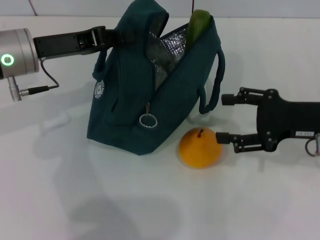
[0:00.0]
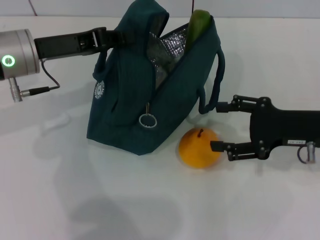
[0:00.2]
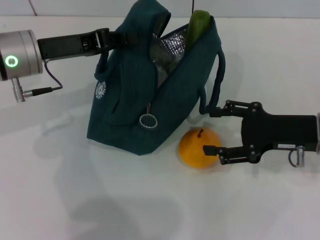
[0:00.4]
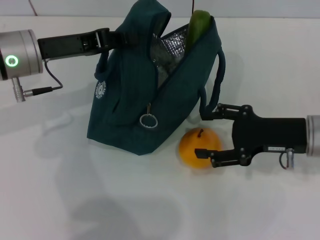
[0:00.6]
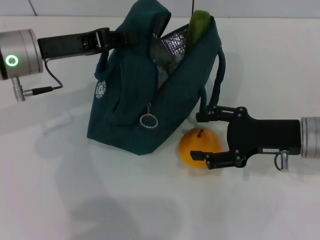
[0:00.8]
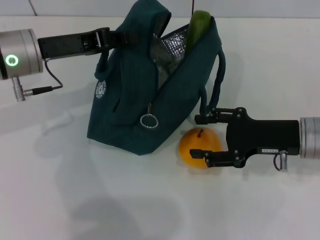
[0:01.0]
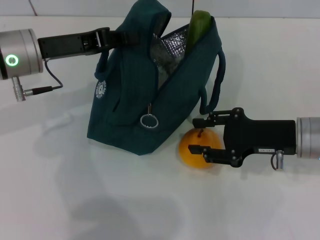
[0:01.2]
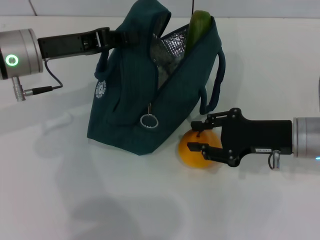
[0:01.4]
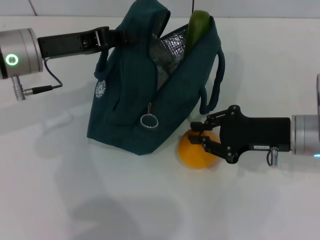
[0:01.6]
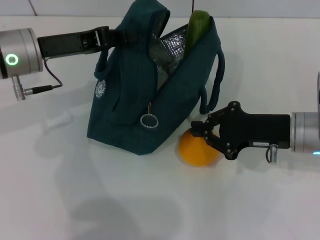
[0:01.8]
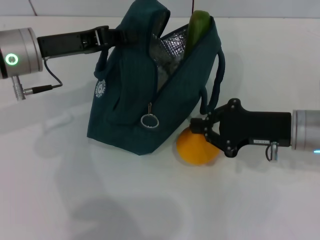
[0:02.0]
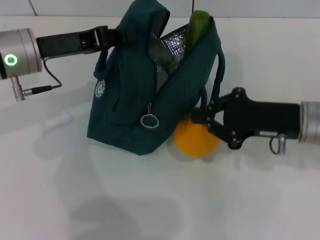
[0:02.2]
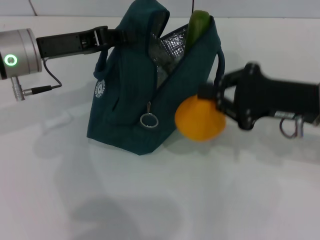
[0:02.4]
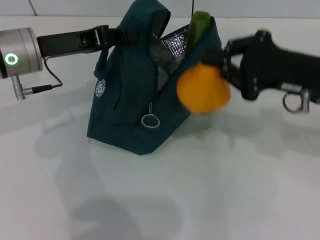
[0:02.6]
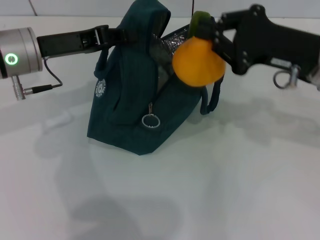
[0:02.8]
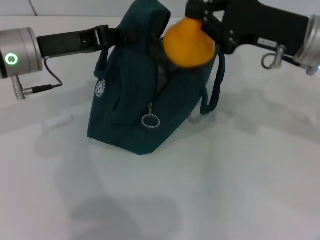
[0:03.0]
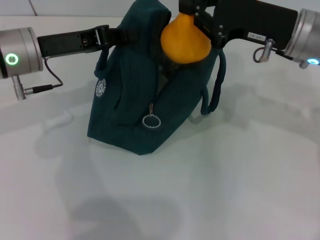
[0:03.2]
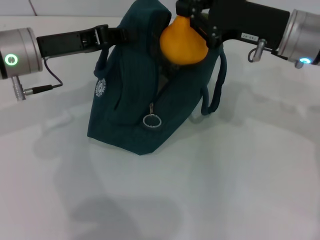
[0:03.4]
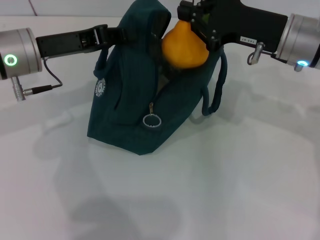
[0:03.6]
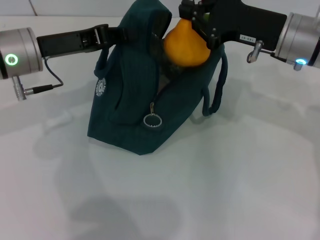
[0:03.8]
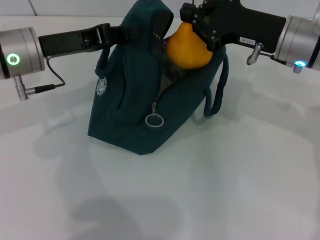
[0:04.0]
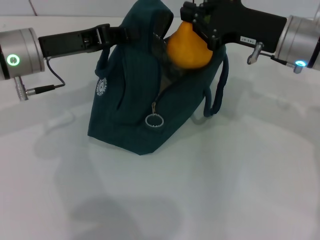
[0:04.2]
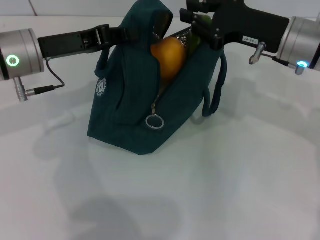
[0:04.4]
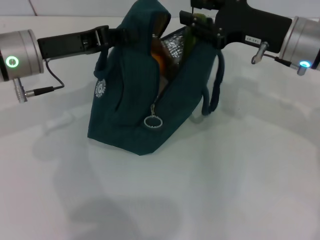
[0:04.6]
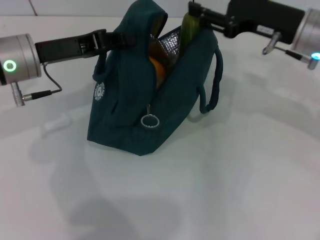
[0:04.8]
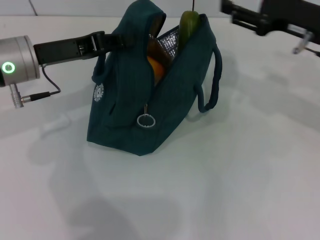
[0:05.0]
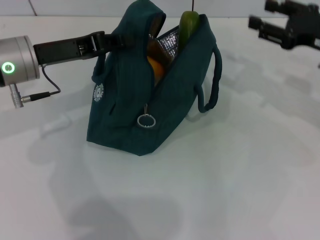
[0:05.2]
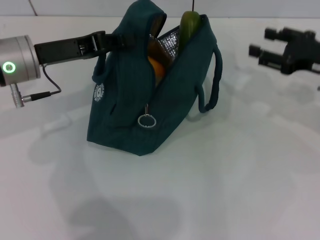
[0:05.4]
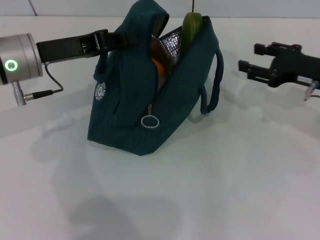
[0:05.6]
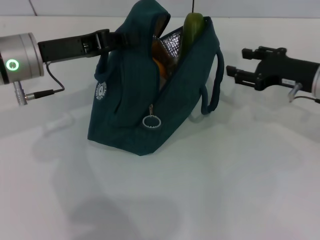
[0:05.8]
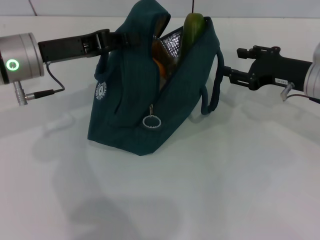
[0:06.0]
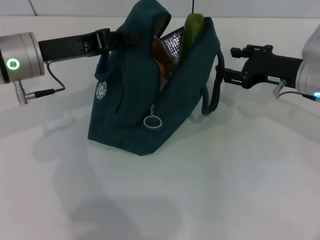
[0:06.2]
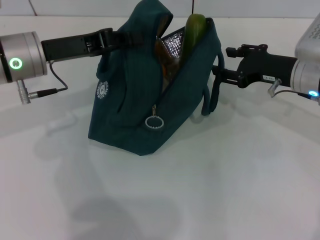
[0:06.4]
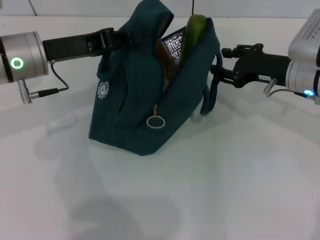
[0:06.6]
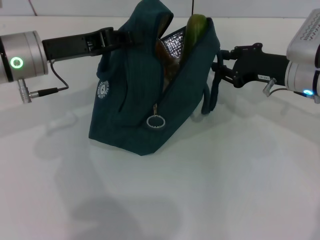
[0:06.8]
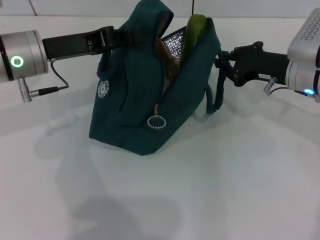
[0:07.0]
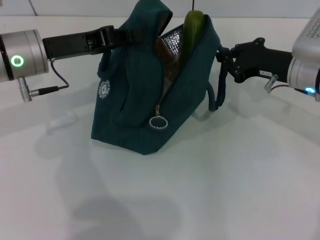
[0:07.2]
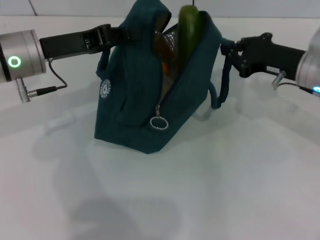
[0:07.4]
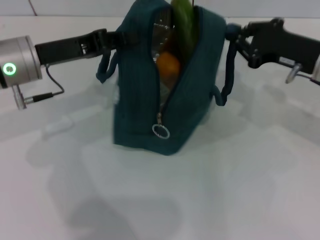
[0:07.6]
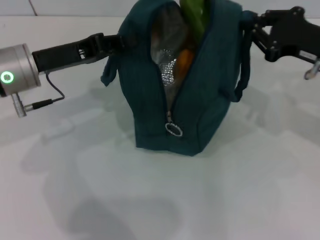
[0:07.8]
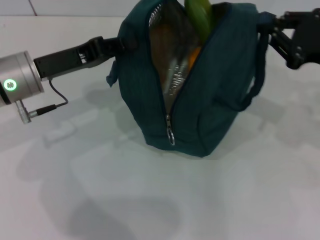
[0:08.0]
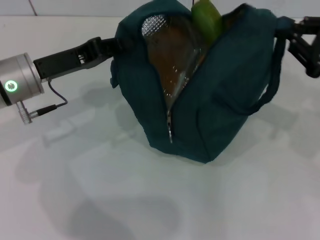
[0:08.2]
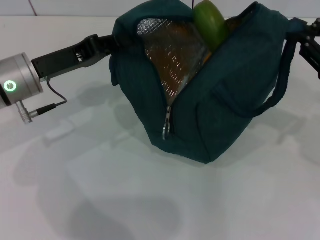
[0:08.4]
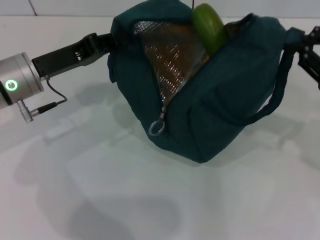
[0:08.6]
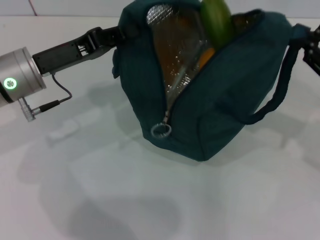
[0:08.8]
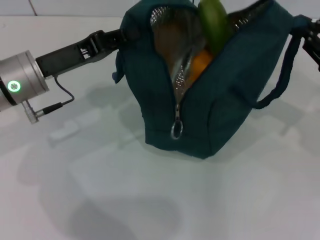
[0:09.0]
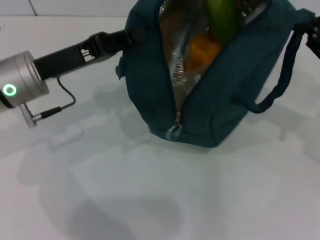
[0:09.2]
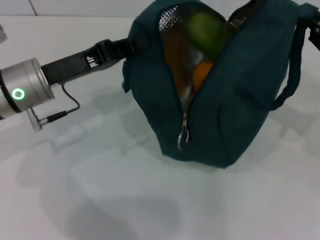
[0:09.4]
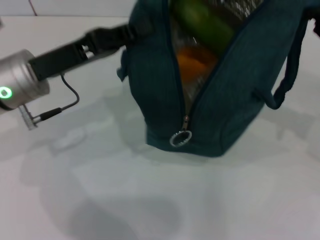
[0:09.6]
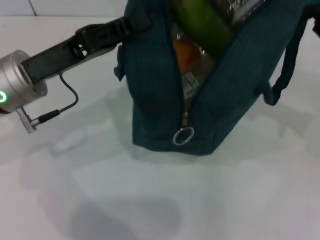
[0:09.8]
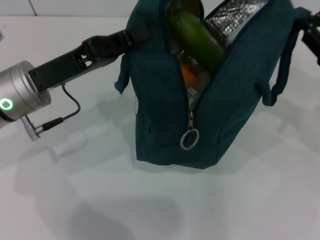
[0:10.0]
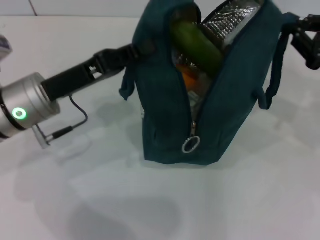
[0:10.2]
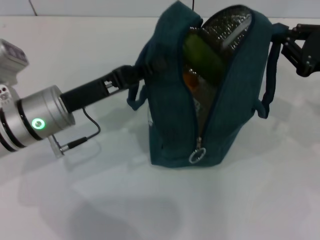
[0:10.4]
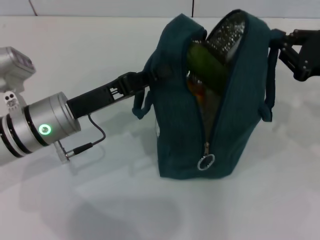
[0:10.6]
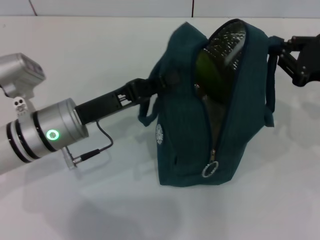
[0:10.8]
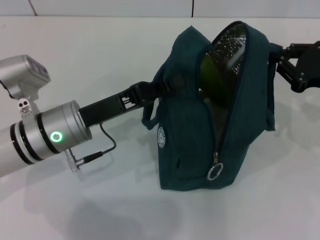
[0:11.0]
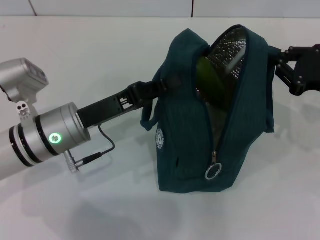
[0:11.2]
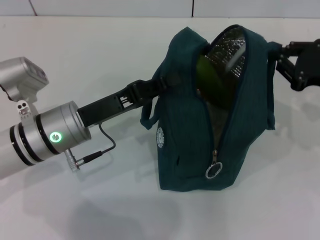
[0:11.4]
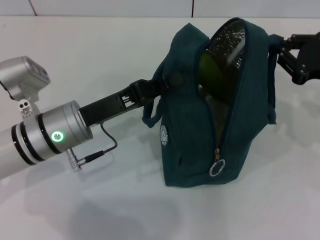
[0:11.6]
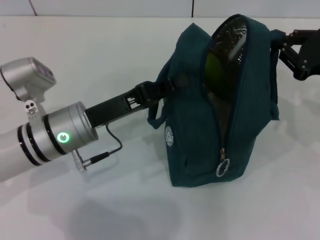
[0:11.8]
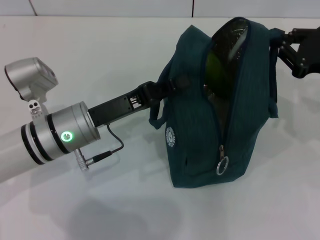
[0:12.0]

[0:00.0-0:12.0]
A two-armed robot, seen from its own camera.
Step, 0:00.0 to 0:01.8: Grab the pear with your right hand.
0:00.0 to 0:01.6: The right gripper moves approximately 5 cm, and closes up.
0:01.6 to 0:03.0: The right gripper goes approximately 10 cm upward, and closes.
0:03.0 to 0:04.4: The grippers stay close to where they were, moving slightly.
0:04.4 to 0:06.0: The right gripper heads downward and to the right, covering about 10 cm, and opens up.
0:06.0 to 0:07.6: The right gripper closes its fingers.
0:07.6 to 0:09.0: The right gripper travels to the right and backward by about 10 cm.
0:09.0 to 0:10.4: The left gripper ends up about 5 cm from where it was.

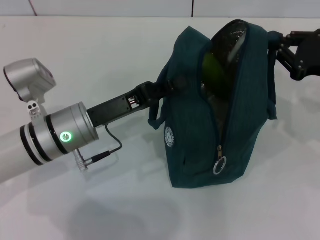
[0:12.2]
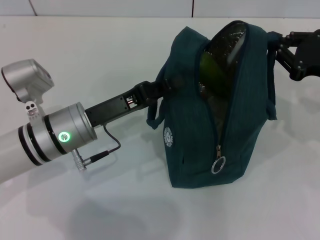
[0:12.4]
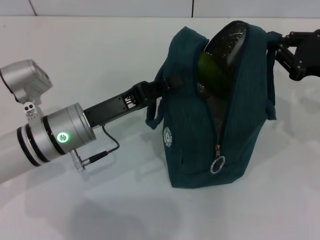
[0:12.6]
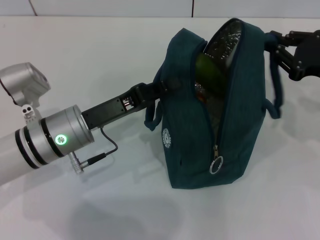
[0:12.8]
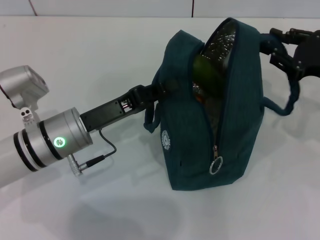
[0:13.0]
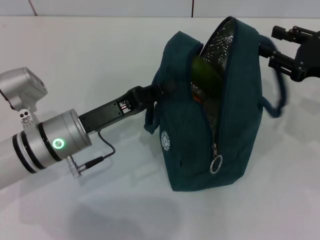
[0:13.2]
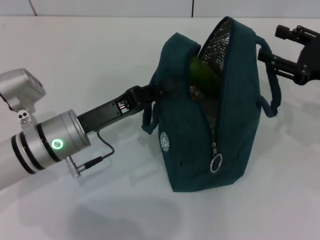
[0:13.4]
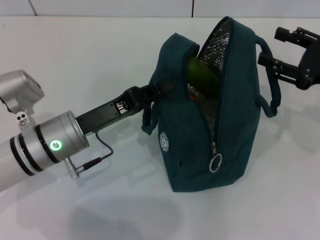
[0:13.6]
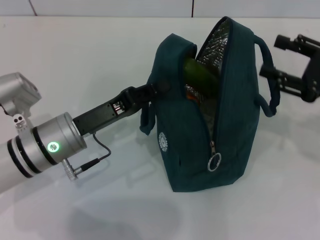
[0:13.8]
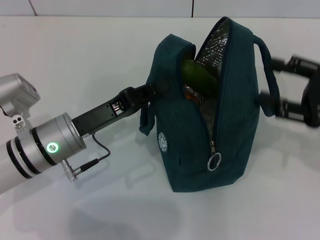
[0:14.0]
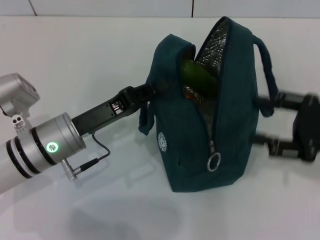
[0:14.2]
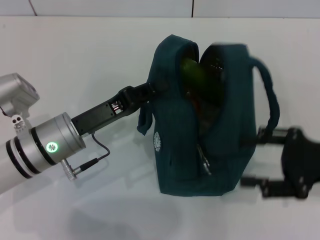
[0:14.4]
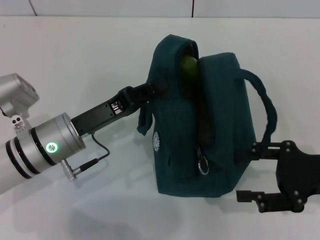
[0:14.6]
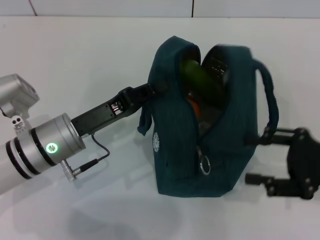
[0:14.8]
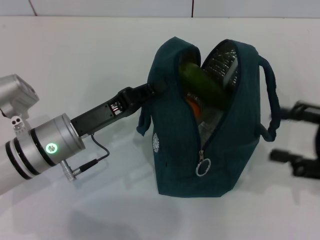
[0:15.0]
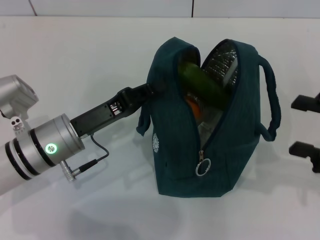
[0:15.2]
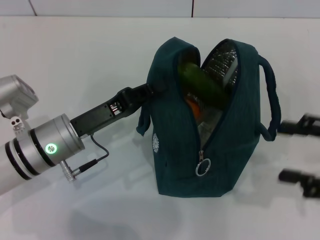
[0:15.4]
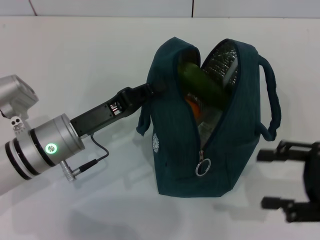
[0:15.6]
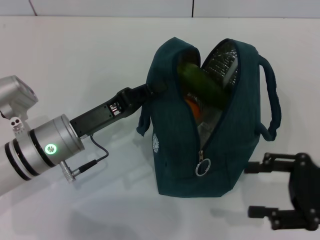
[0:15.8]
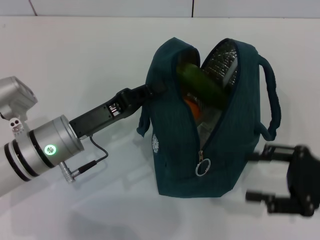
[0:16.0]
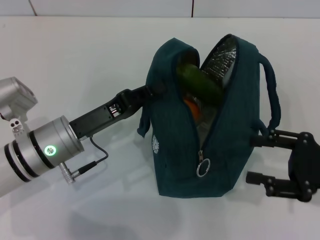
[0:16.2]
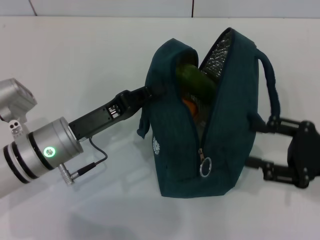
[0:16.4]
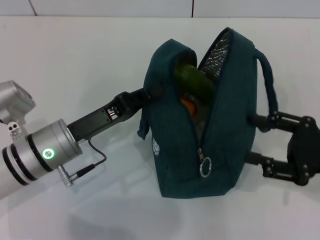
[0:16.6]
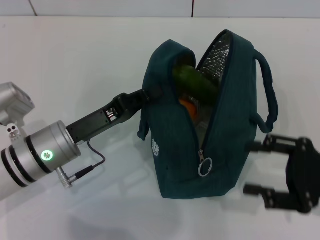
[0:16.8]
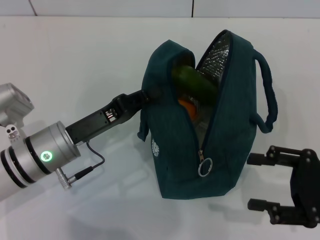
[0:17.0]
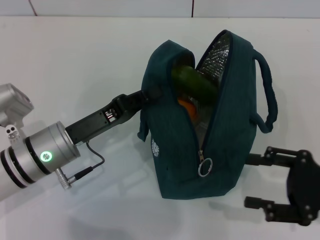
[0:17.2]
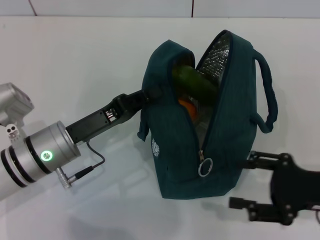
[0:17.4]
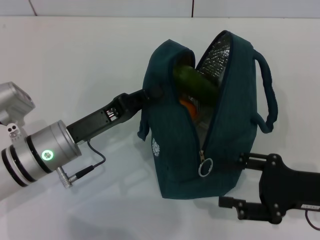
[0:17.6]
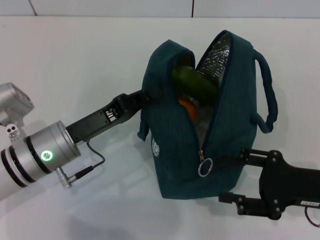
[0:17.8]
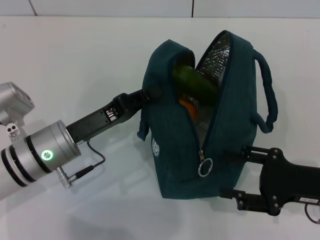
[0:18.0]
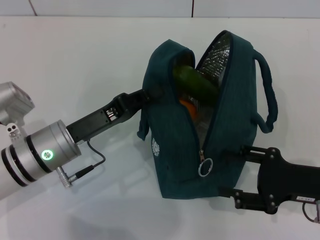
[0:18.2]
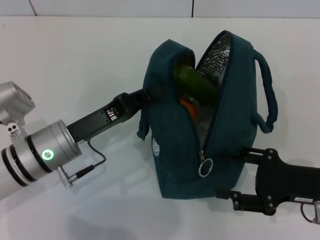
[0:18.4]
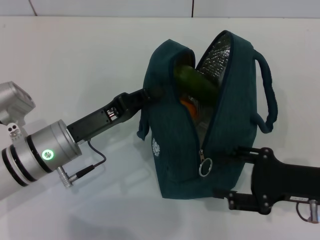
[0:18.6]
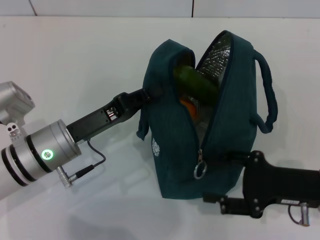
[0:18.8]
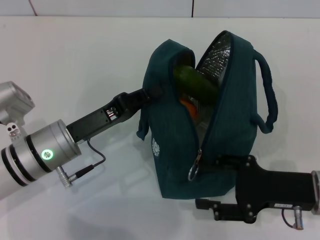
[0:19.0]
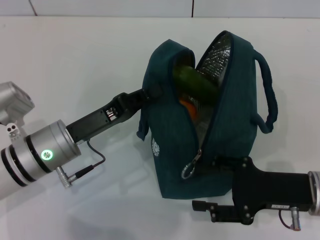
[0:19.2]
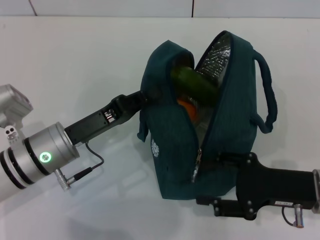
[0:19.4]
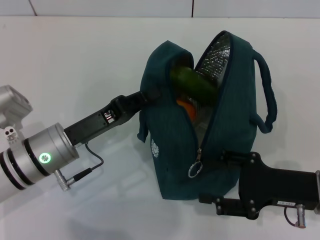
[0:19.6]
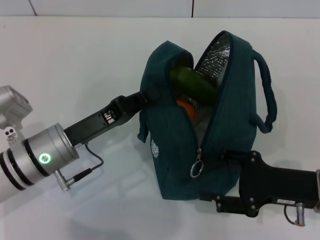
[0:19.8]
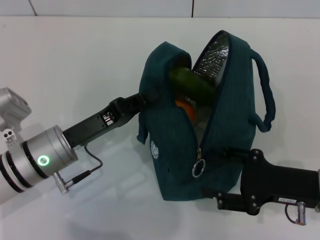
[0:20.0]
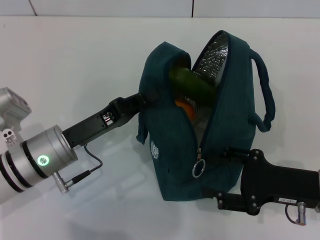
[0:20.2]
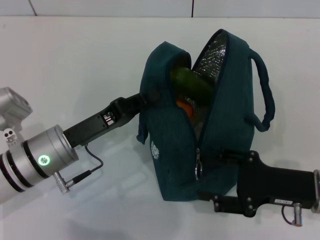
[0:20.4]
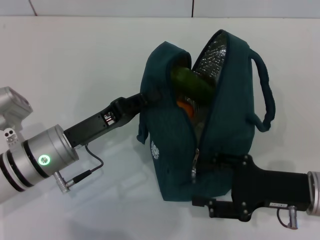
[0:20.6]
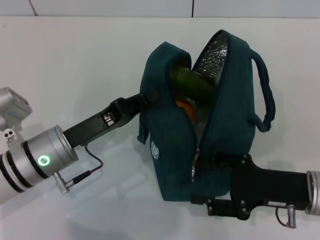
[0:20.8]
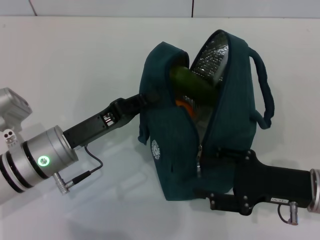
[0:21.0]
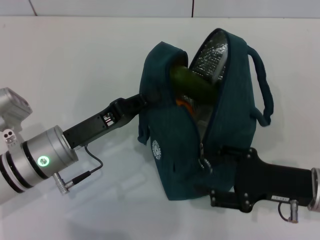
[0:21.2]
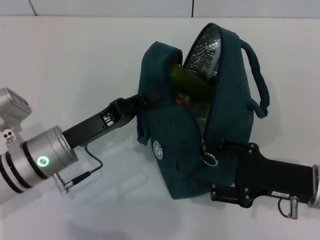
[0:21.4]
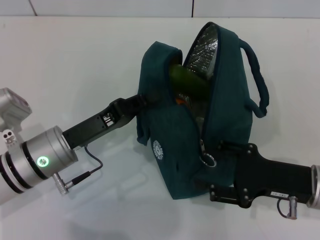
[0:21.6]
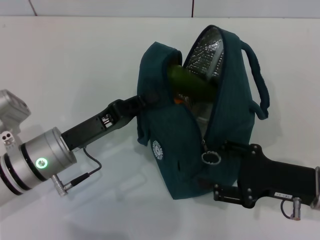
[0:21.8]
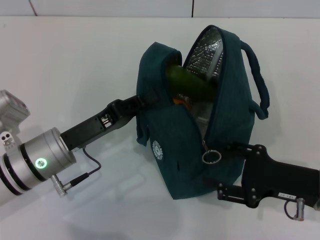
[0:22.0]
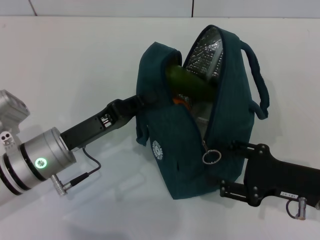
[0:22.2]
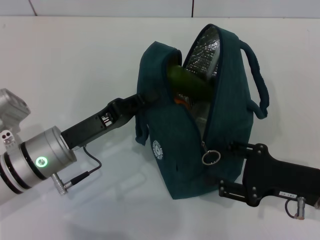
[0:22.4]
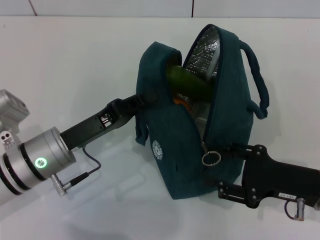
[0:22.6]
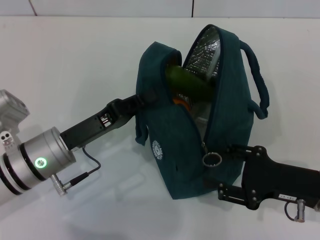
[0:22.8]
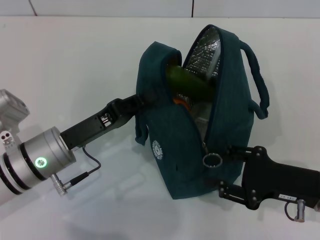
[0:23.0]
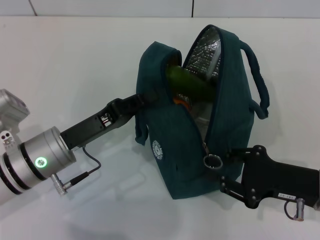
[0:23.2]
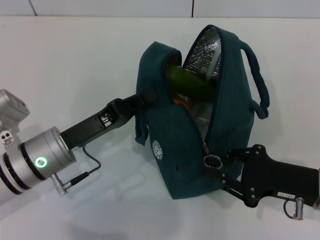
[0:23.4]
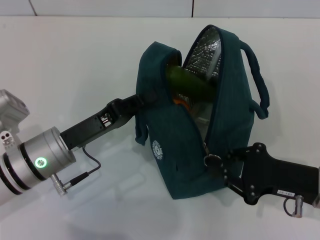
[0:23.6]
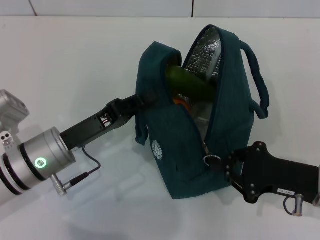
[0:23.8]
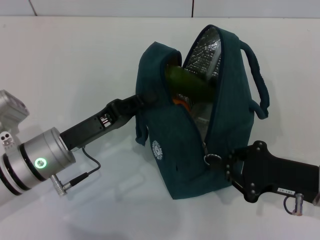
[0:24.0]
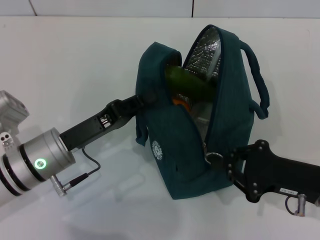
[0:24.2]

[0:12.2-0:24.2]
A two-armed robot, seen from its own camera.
0:12.2 to 0:13.8: The right gripper opens its fingers.
0:13.8 to 0:15.2: The right gripper travels backward by roughly 5 cm.
0:15.2 to 0:16.6: The right gripper changes place by roughly 5 cm.
0:16.6 to 0:18.2: The grippers stay close to where they were, moving slightly.
0:18.2 to 0:19.8: There are only small adjustments of the grippers.
0:19.8 to 0:21.2: Both grippers stay put.
0:21.2 to 0:22.6: The grippers move only a little.
0:22.6 to 0:24.2: The right gripper closes.
